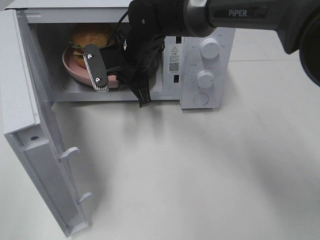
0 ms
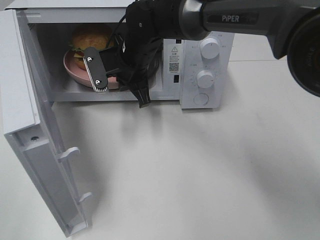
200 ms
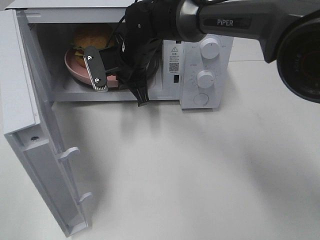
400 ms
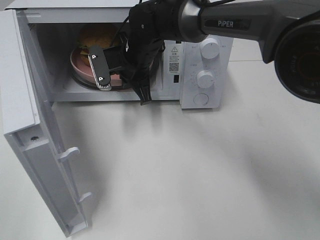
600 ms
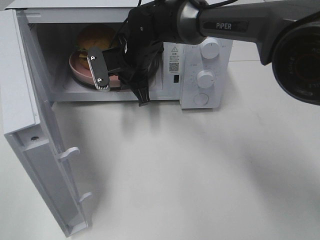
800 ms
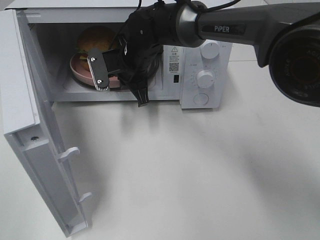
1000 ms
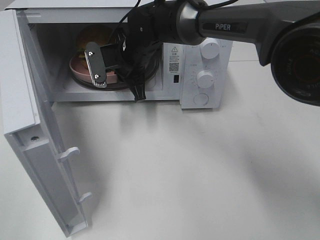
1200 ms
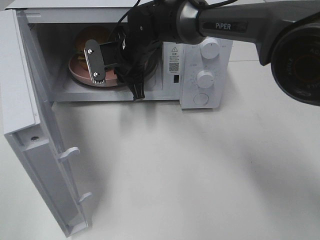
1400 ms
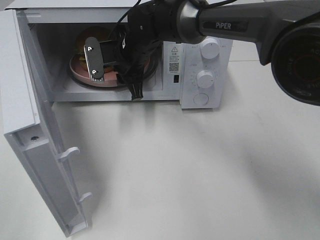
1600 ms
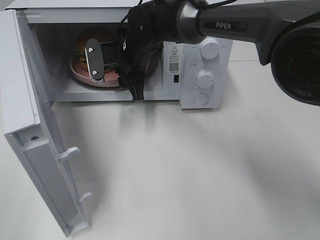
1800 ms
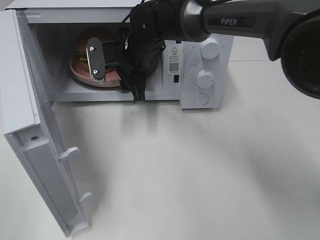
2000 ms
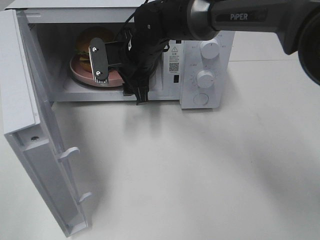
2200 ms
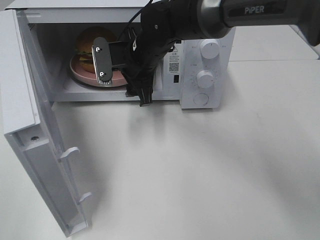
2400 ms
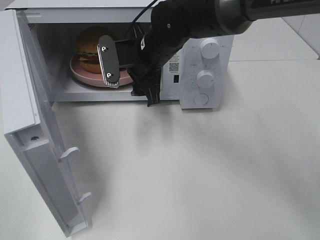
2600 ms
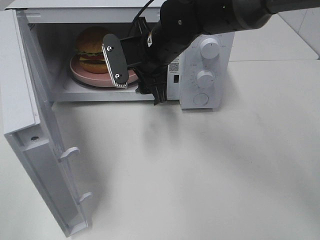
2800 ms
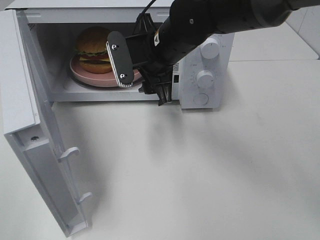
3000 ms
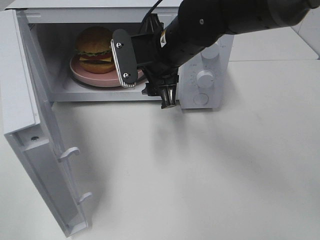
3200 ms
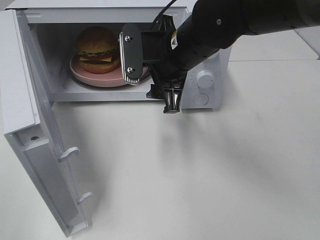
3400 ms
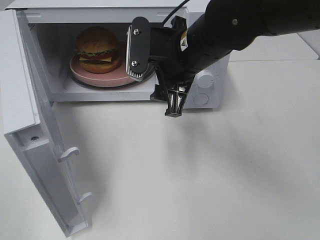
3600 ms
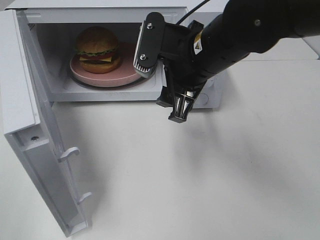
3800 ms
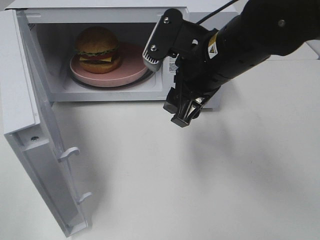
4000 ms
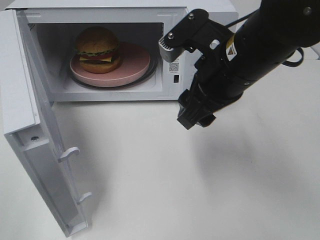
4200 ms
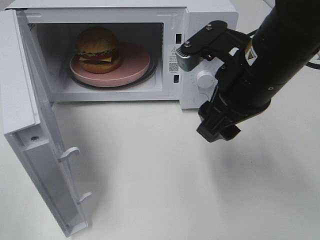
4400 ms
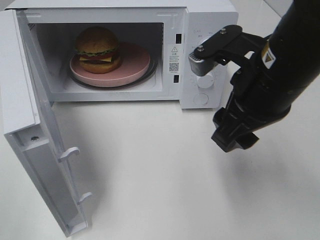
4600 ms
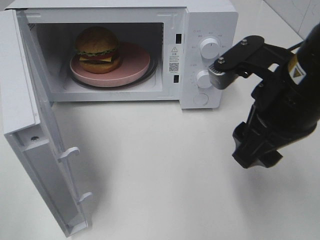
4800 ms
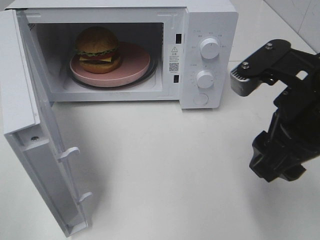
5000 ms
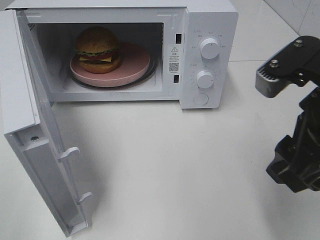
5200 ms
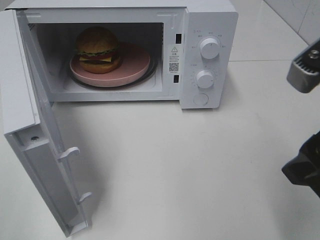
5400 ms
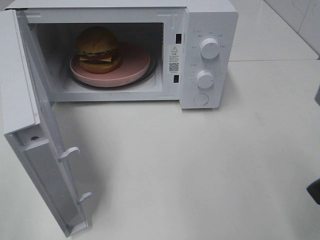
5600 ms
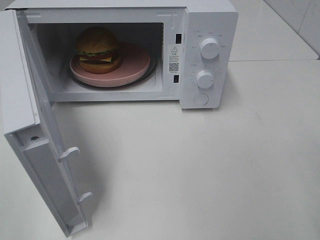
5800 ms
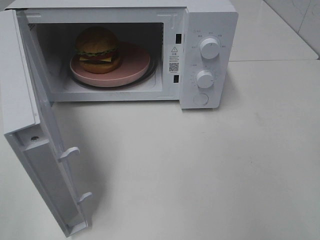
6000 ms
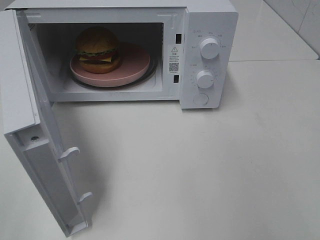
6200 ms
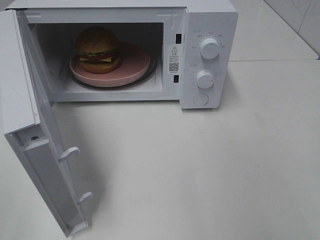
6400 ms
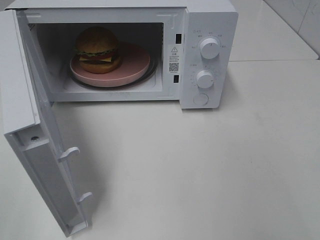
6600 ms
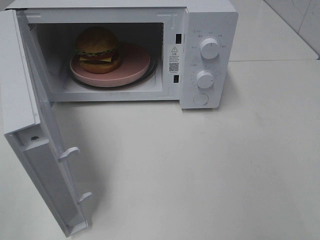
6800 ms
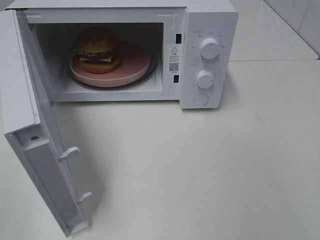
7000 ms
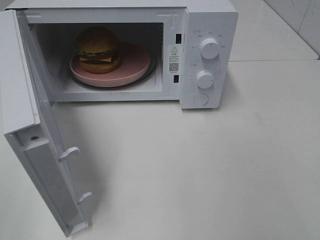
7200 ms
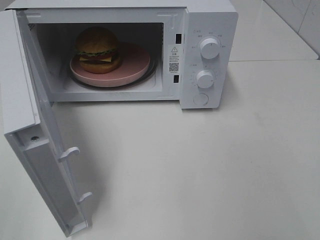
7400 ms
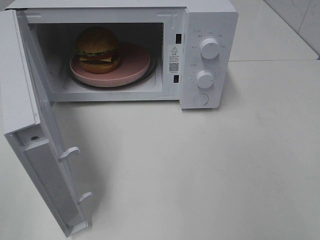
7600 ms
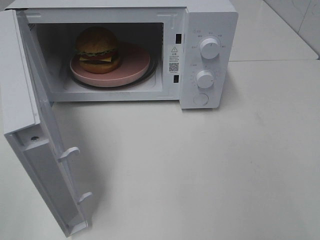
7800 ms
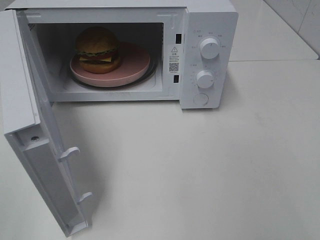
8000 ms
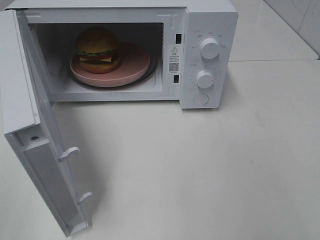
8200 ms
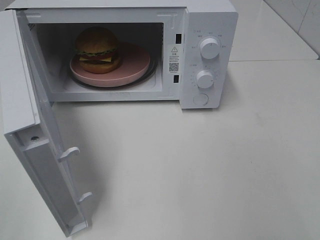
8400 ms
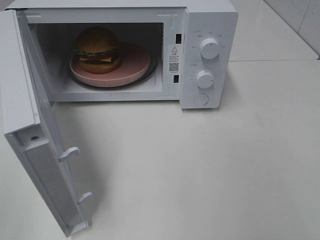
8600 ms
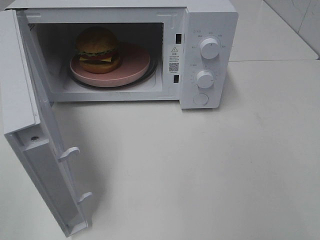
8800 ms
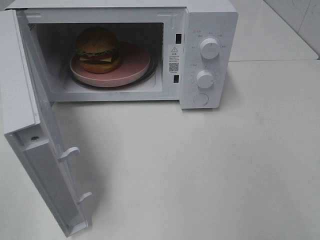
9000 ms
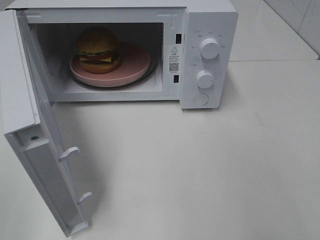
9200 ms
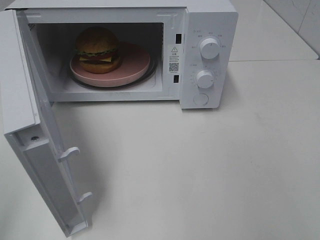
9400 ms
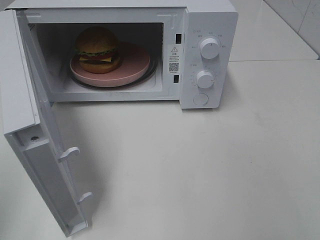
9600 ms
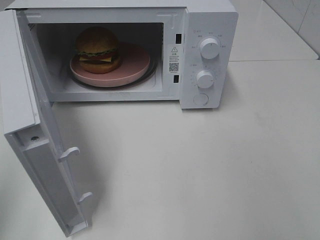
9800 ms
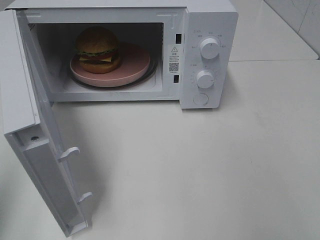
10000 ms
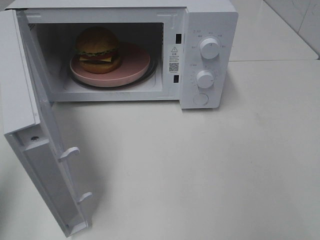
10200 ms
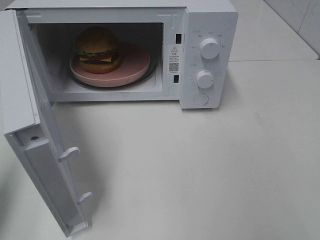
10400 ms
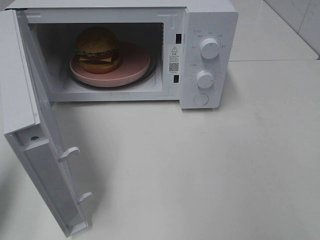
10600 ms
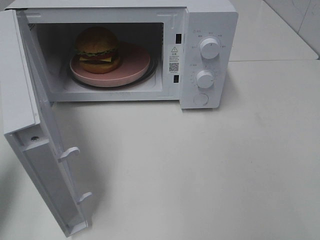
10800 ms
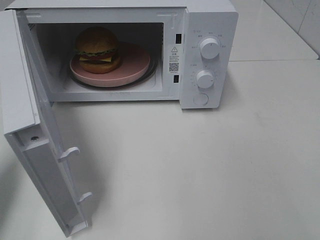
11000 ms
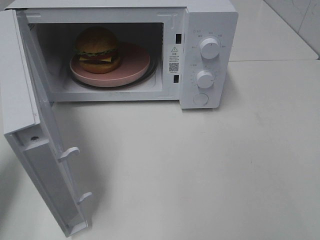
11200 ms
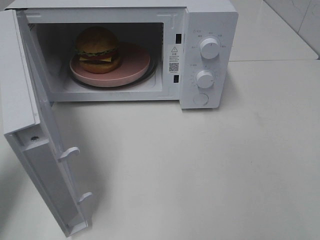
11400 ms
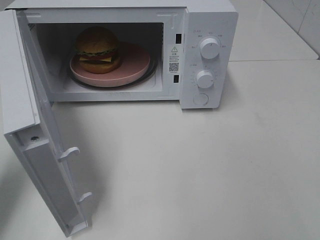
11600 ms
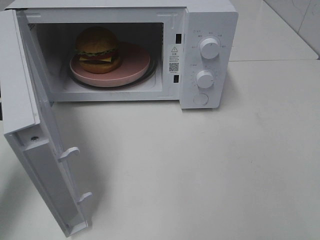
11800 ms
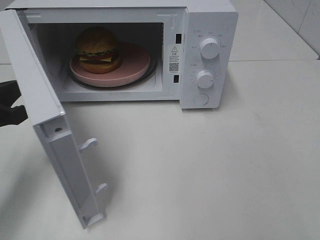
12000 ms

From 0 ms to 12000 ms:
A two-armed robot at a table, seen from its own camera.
Task of the whole recording: Heat the burger.
From 0 ms to 1600 ms: The right gripper opens up.
From 1600 ms to 3000 ms: The right gripper moves backward and to the right, some 10 cm.
From 3000 ms to 4400 ms: The right gripper travels backward and to the right by some 15 cm.
From 4400 ms to 6000 ms: The right gripper heads to the right and backward, covering some 20 cm.
From 7600 ms to 9000 ms: Both grippers stay about where they are.
From 9000 ms to 10400 ms: The left gripper is displaced forward by some 15 cm, and closes.
From 10400 ms to 12000 ms: The left gripper shifts about 15 cm forward, downward and to the right.

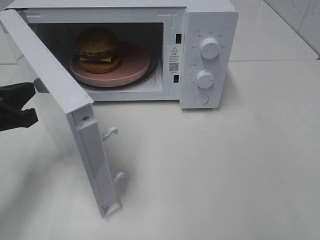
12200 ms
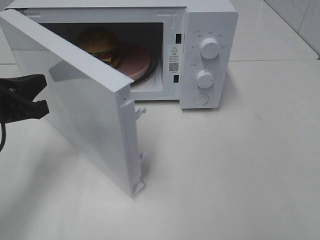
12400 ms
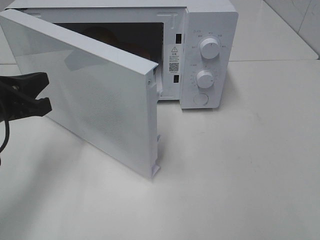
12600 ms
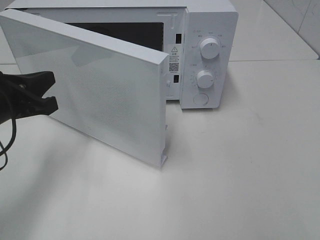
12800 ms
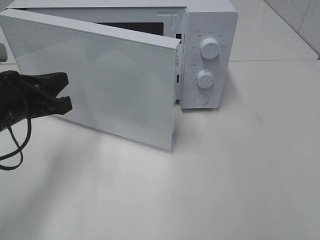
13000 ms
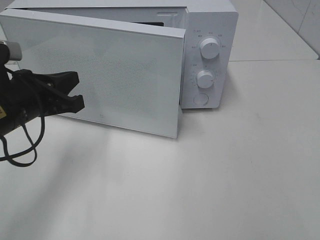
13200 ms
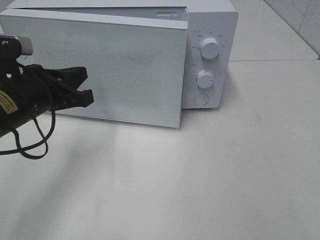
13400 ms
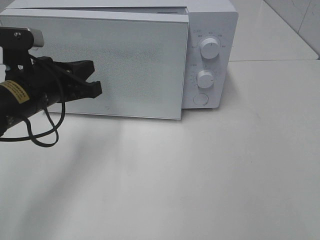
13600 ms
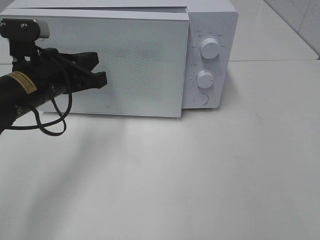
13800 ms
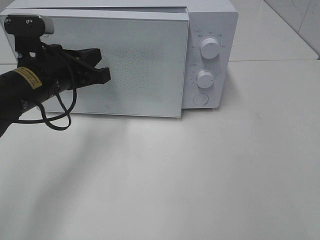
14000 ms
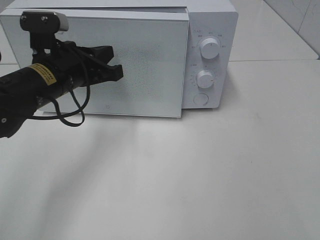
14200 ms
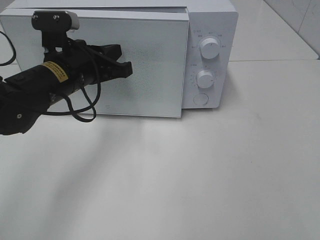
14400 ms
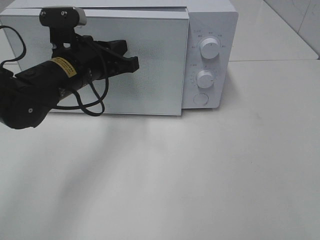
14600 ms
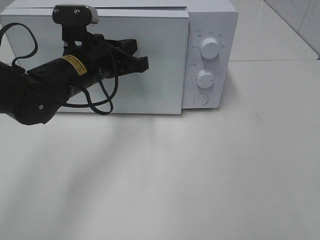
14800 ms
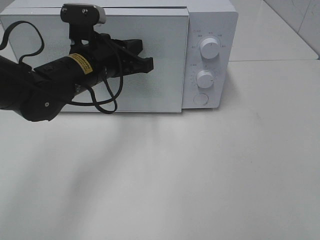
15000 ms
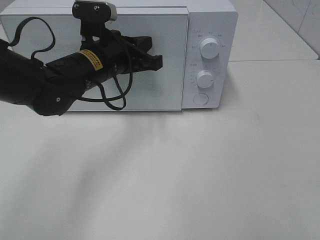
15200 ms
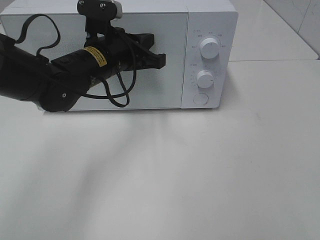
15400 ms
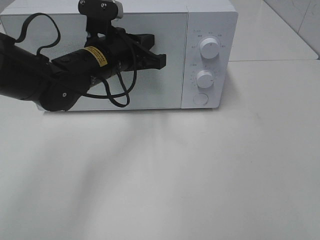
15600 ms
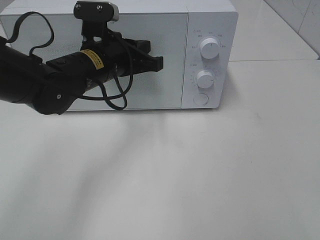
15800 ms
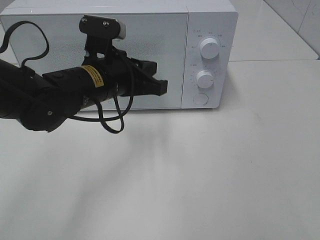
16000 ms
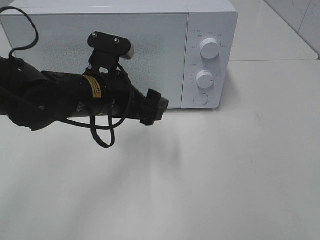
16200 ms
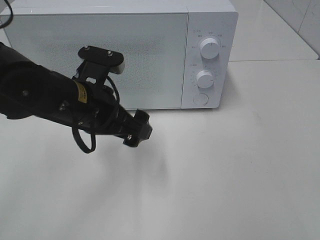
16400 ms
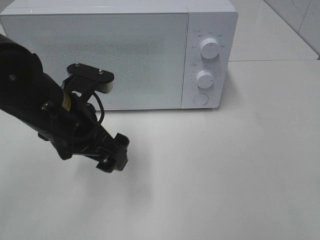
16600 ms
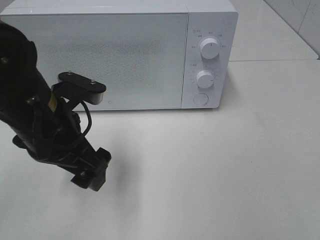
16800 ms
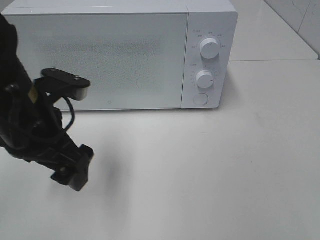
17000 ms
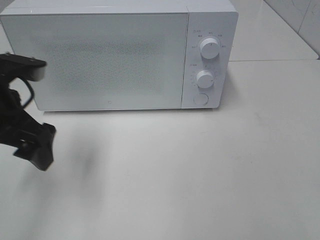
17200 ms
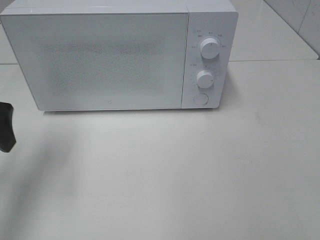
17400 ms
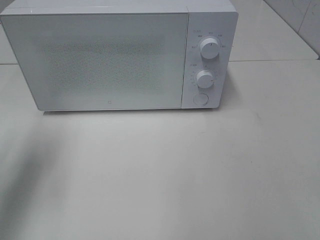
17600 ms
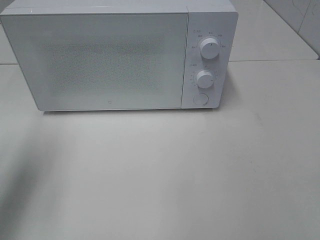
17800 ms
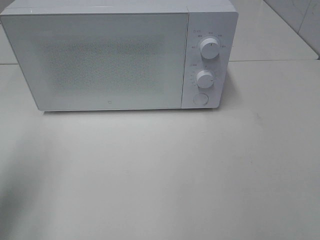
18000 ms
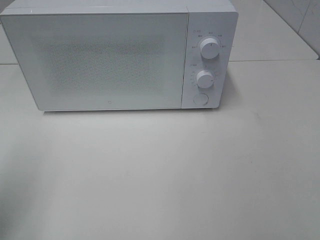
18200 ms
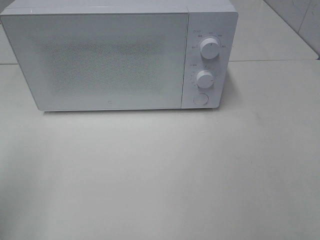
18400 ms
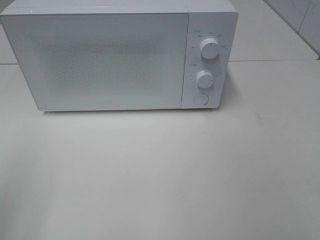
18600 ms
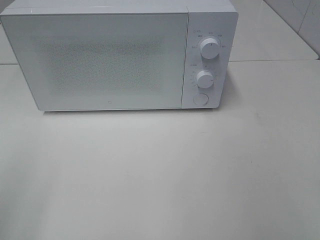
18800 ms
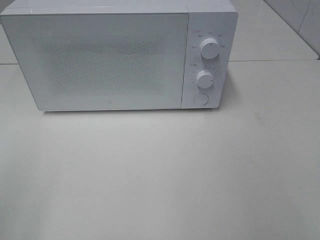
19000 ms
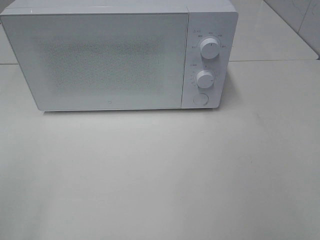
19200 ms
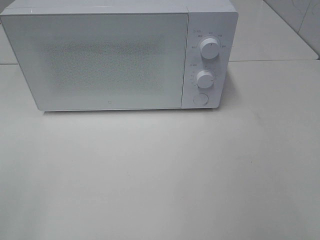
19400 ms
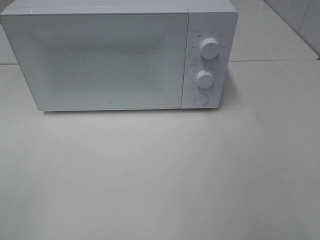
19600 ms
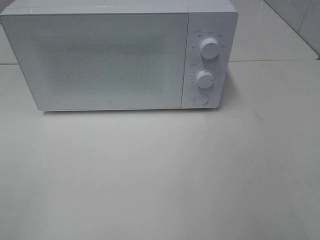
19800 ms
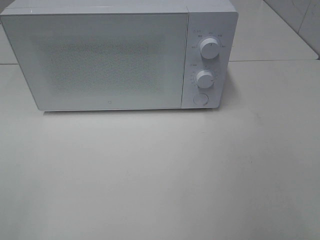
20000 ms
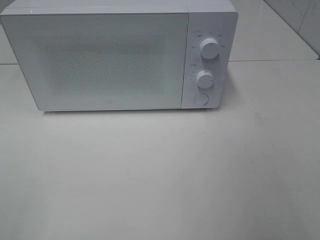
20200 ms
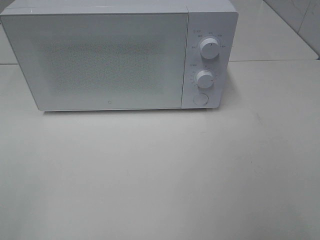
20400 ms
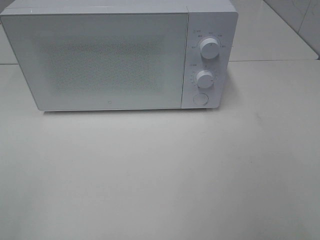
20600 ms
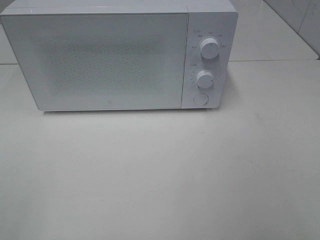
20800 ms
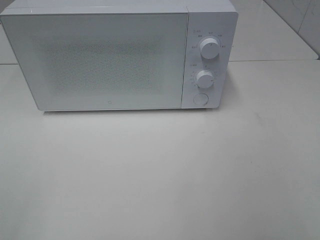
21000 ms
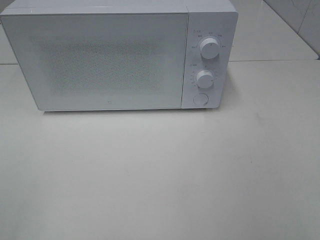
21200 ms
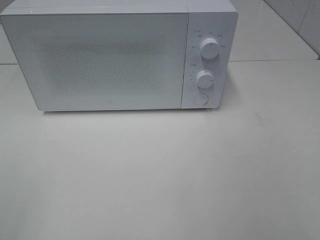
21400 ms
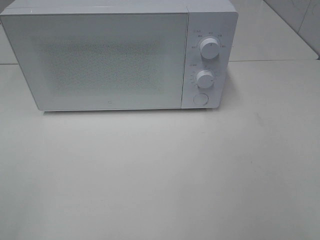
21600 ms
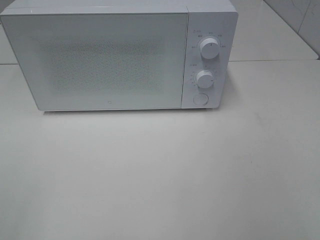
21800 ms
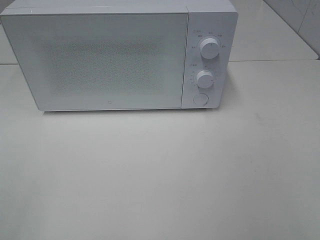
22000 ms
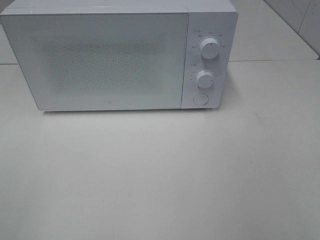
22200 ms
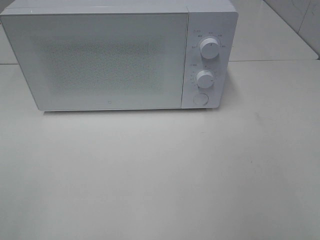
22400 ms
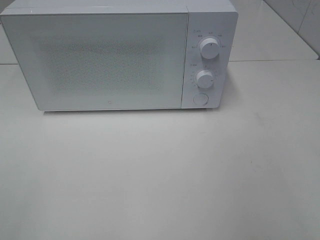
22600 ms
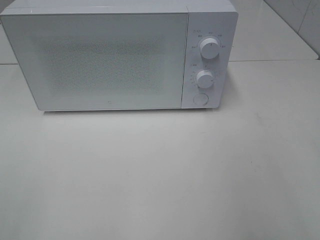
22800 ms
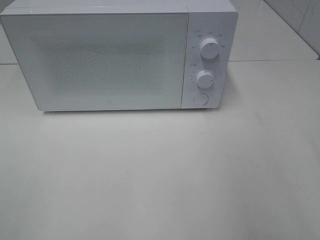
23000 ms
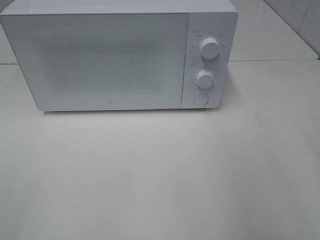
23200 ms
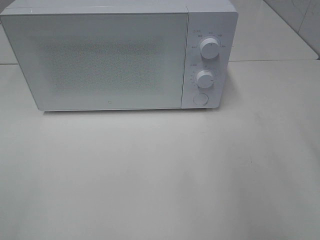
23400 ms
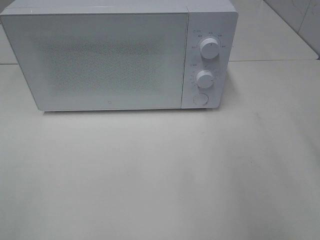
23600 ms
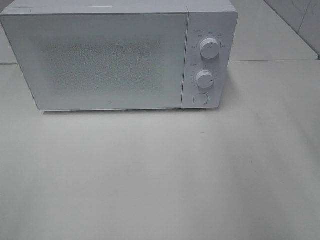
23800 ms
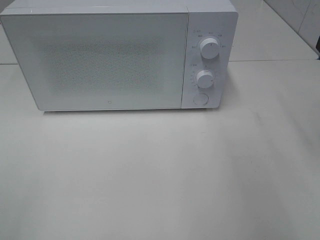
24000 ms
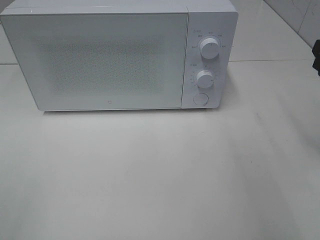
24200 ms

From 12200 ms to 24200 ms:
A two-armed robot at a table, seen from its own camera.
Task of the whole recording: Heat the burger.
Step, from 12200 ms to 16000 ms: Left hand: close the microwave door.
From 12200 ms to 13800 ms: The left gripper goes approximately 10 cm to the right and forward.
From 13800 ms to 15200 ms: The left gripper is displaced to the right and forward by approximately 10 cm.
From 15200 ms to 16600 ms: The left gripper is displaced backward by roughly 10 cm, and opens up.
From 16600 ms to 18200 ms: The left gripper goes about 20 cm to the left and backward.
From 19800 ms to 21200 ms: Both grippers stay about where they are.
